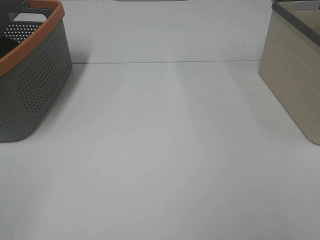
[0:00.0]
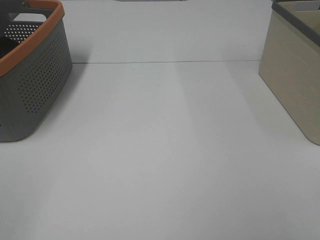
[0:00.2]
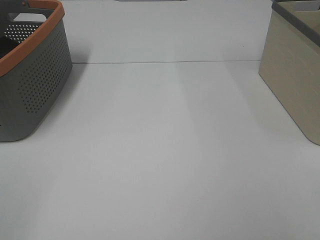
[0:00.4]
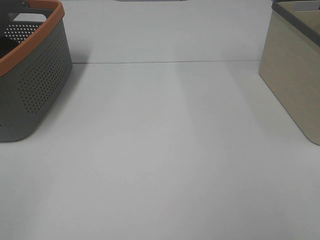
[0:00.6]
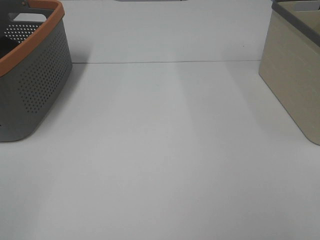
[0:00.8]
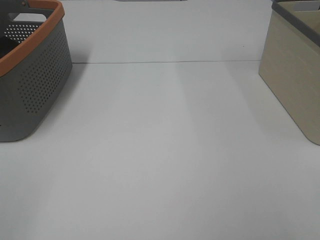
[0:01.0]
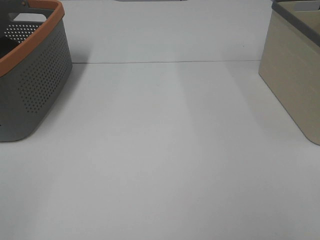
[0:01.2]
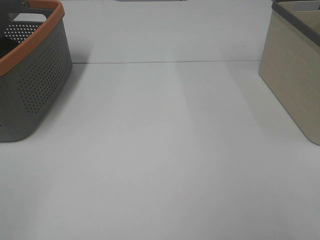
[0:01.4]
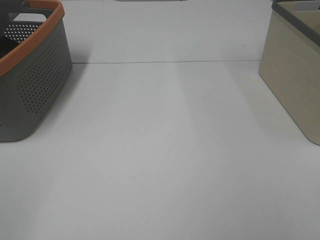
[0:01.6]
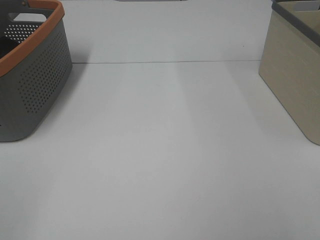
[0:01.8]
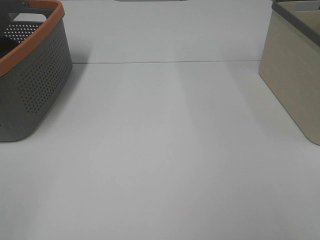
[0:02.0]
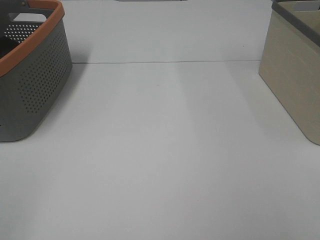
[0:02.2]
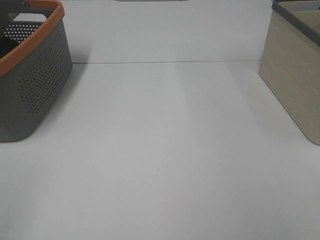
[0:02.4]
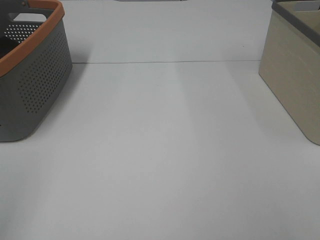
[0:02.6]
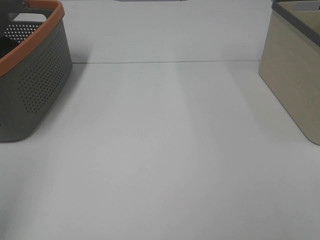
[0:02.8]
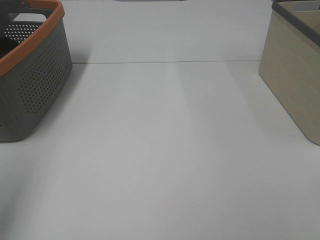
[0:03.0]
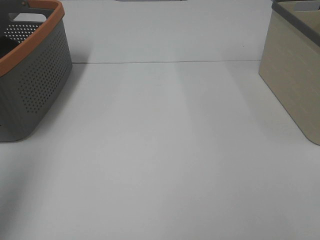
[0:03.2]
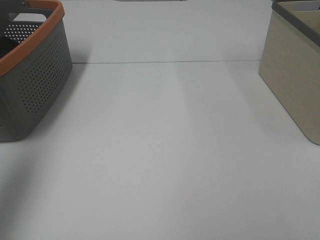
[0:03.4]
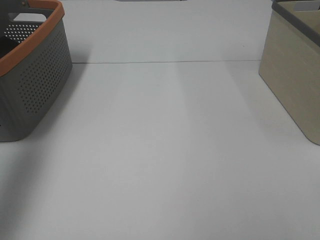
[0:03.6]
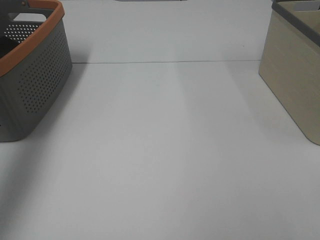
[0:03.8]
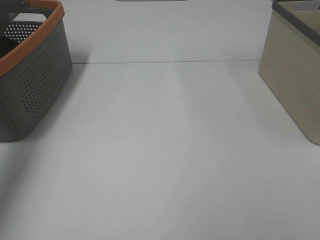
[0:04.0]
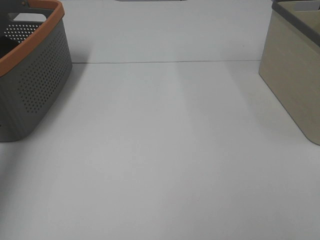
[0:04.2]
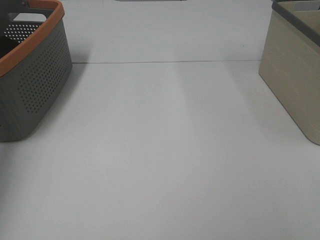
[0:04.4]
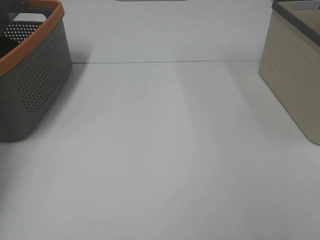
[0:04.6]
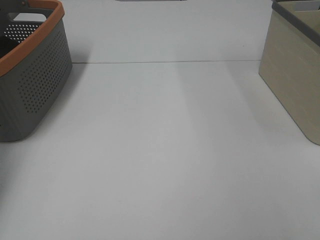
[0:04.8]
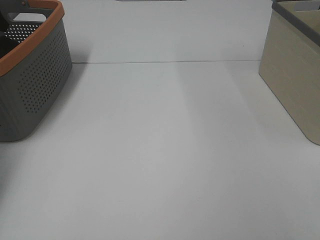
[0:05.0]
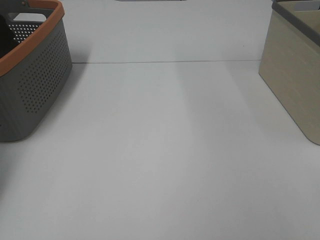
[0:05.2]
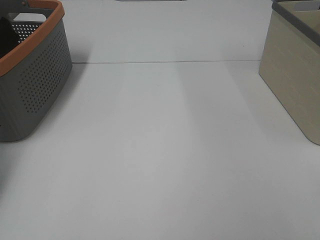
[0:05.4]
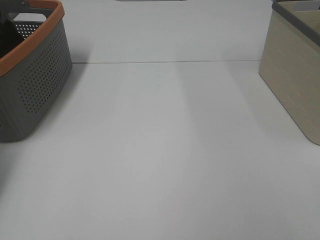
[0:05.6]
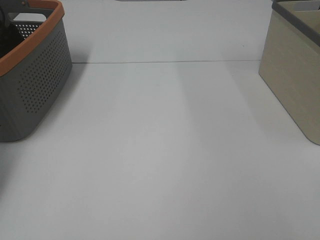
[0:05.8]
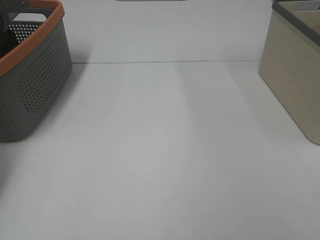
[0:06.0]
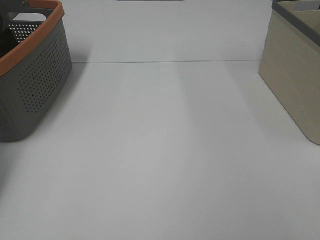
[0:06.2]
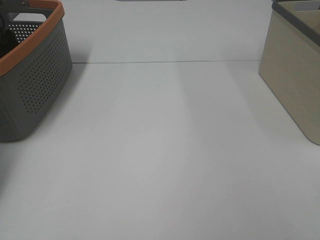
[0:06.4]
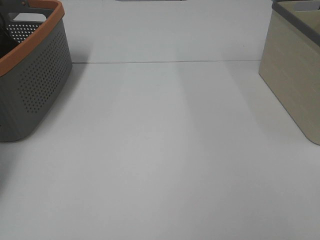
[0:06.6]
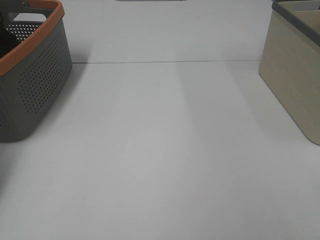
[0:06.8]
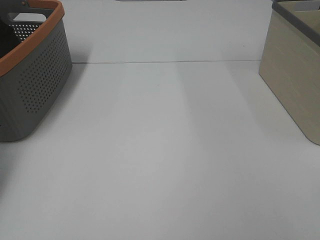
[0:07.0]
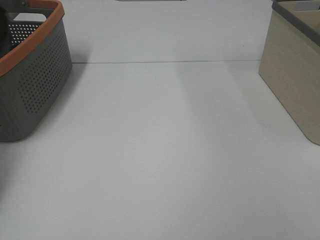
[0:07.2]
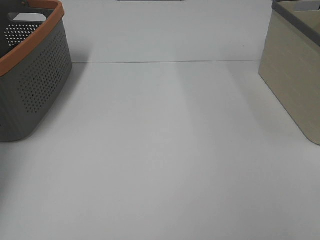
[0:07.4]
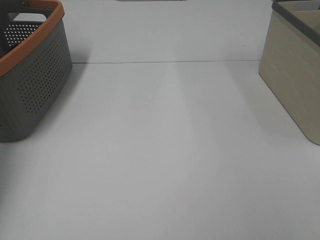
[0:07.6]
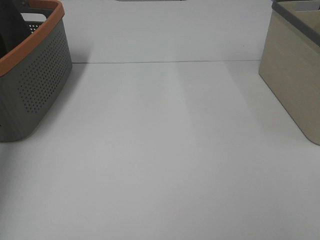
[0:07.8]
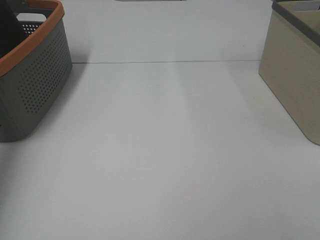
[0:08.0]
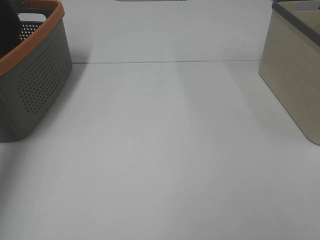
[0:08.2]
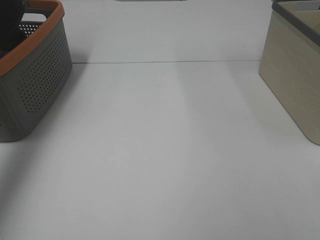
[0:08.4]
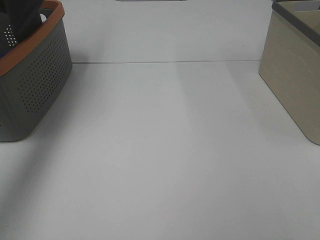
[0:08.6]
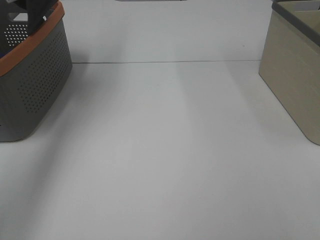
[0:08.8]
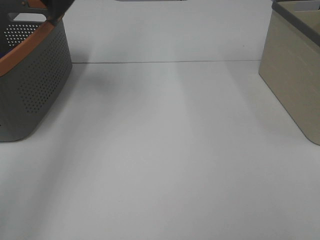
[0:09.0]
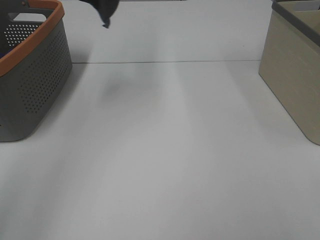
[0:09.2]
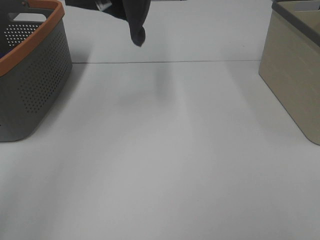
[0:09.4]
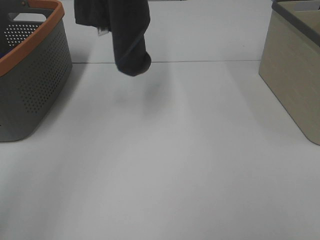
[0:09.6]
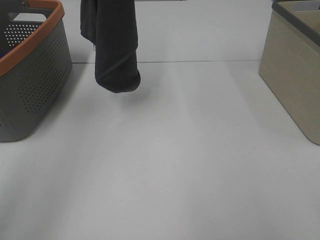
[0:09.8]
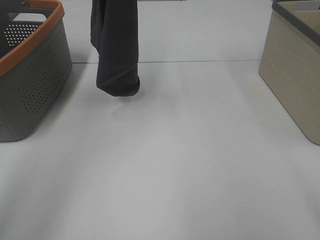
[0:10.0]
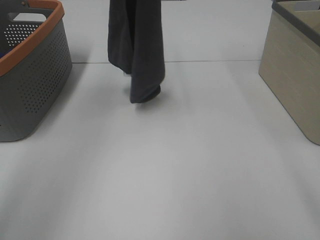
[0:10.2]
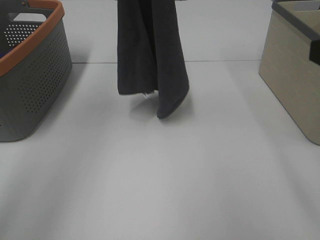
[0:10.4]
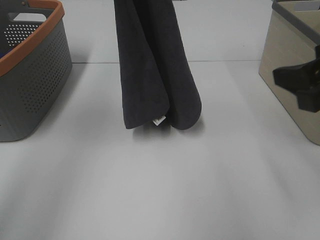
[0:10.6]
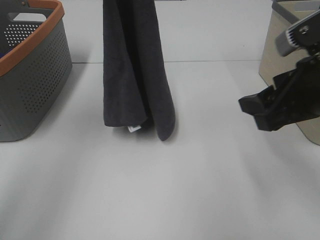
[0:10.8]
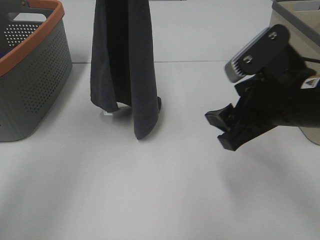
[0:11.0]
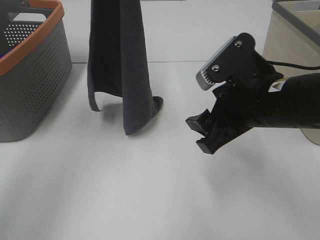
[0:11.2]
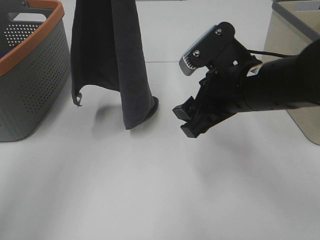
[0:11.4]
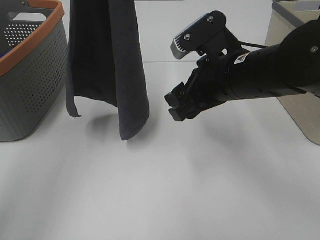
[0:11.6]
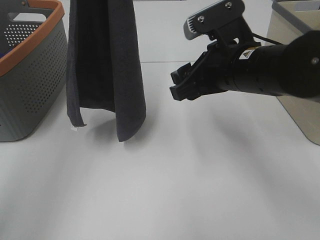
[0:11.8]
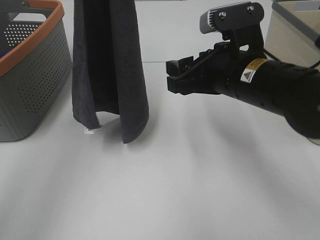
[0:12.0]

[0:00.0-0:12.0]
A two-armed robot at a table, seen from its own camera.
Task of the whole recording: Remove the towel and place it.
0:00.0 to 0:01.6: Both grippers stay put.
0:01.6 to 0:03.0: The left gripper travels forward and upward by some 15 cm.
0:03.0 to 0:04.4: The left gripper goes roughly 35 cm forward.
0:07.6 to 0:09.0: The left gripper is displaced upward, to the right and backward by some 30 cm.
0:09.0 to 0:10.4: The left gripper goes roughly 15 cm downward and to the right, while the right gripper is displaced forward by about 15 cm.
0:10.4 to 0:12.0: The right gripper goes roughly 20 cm to the left, forward and downward.

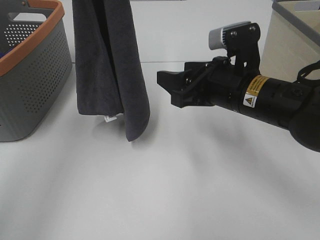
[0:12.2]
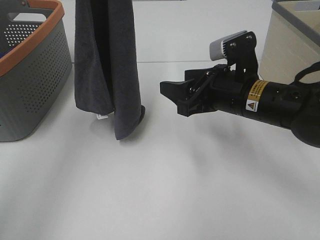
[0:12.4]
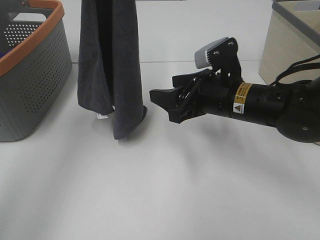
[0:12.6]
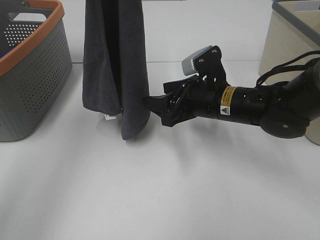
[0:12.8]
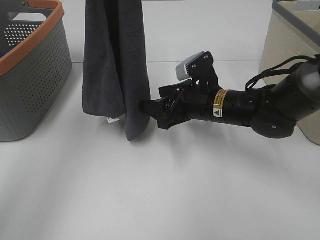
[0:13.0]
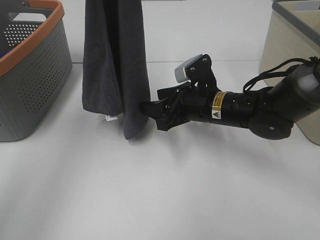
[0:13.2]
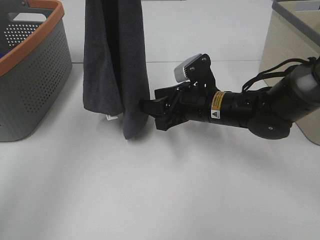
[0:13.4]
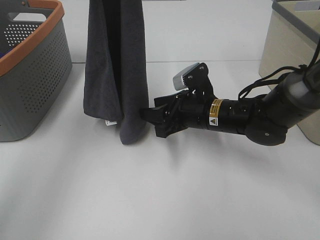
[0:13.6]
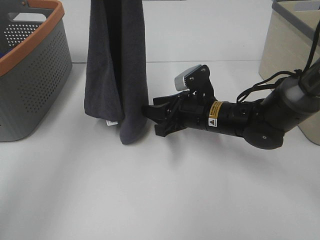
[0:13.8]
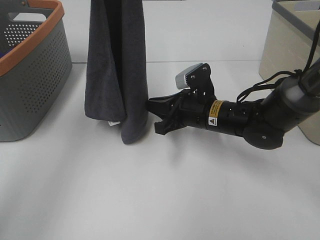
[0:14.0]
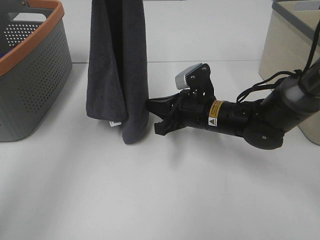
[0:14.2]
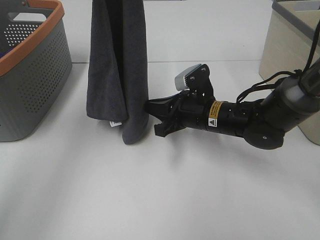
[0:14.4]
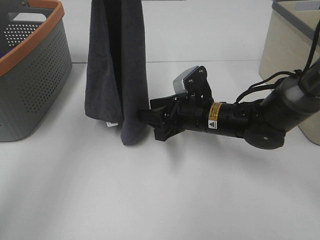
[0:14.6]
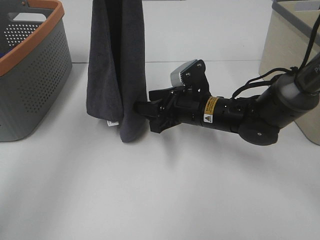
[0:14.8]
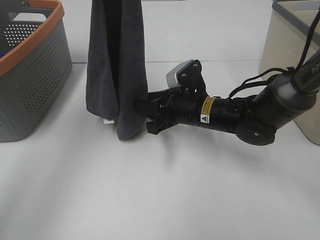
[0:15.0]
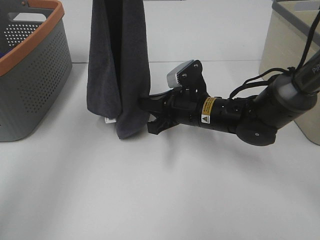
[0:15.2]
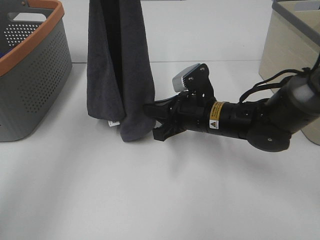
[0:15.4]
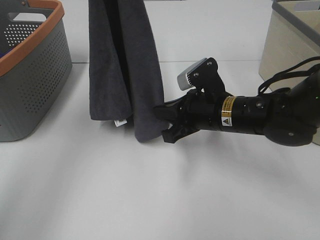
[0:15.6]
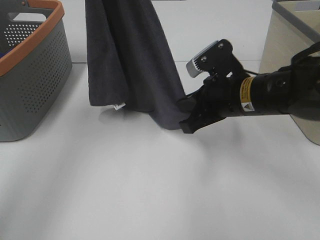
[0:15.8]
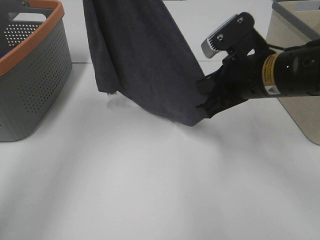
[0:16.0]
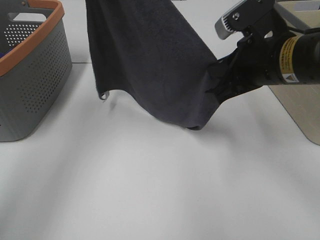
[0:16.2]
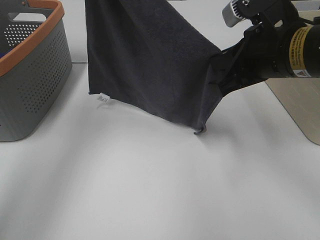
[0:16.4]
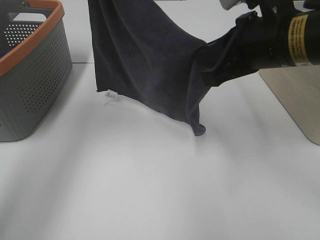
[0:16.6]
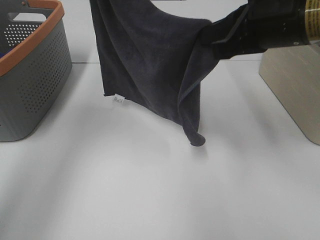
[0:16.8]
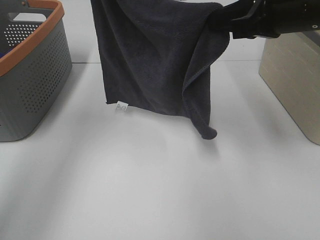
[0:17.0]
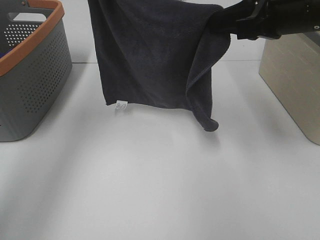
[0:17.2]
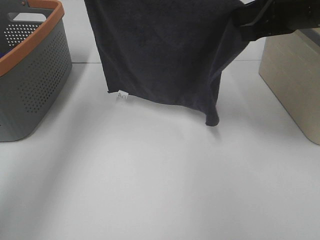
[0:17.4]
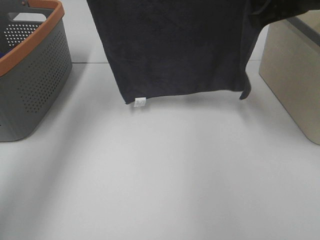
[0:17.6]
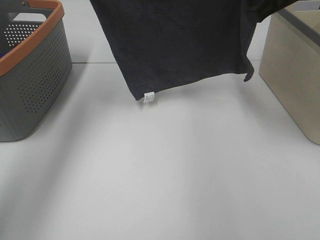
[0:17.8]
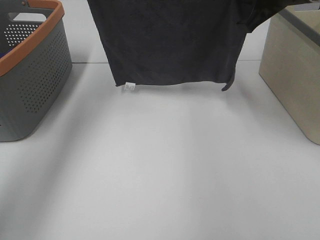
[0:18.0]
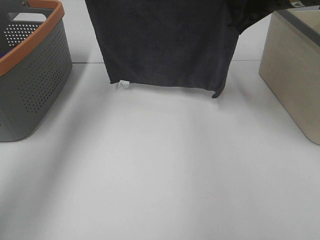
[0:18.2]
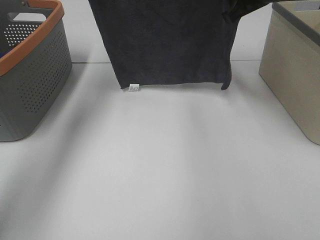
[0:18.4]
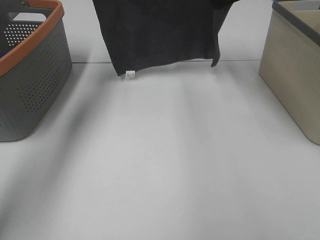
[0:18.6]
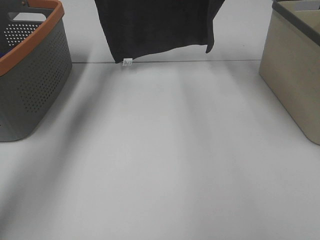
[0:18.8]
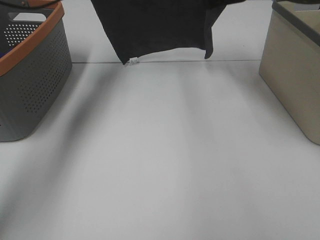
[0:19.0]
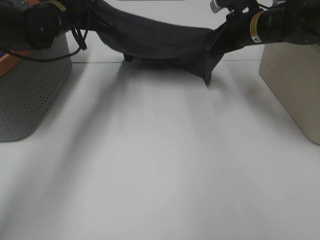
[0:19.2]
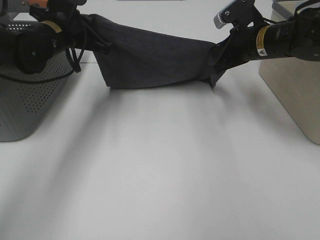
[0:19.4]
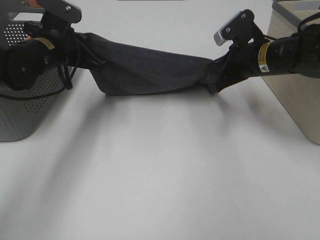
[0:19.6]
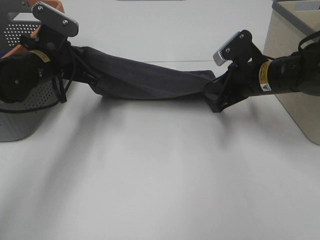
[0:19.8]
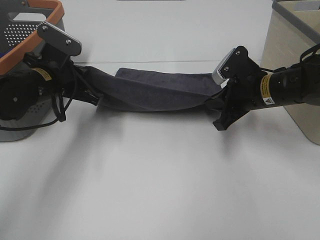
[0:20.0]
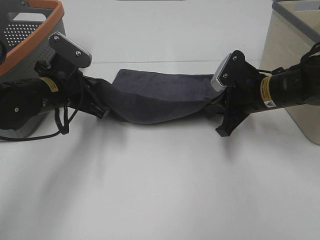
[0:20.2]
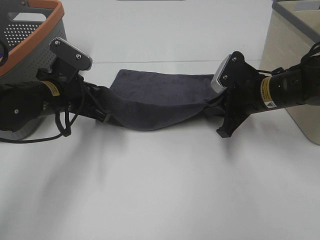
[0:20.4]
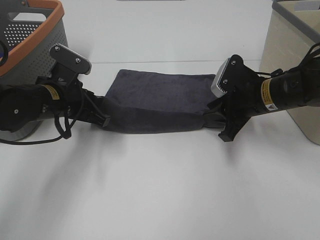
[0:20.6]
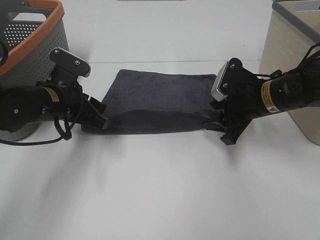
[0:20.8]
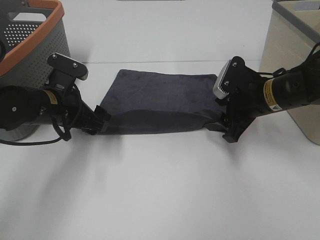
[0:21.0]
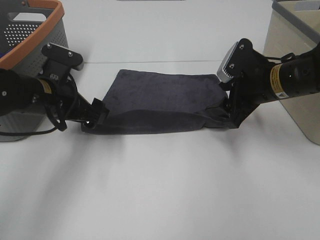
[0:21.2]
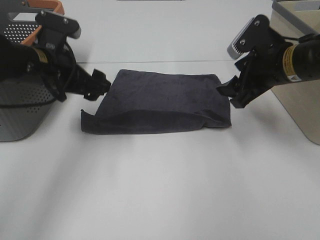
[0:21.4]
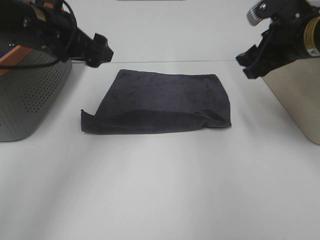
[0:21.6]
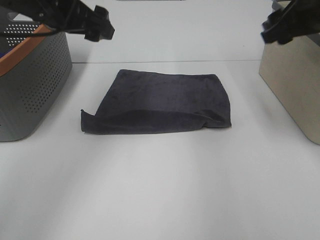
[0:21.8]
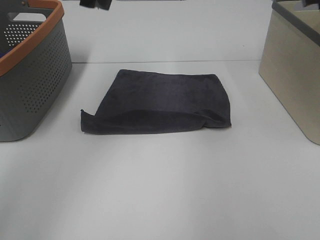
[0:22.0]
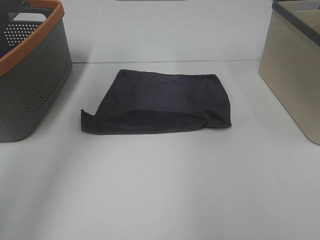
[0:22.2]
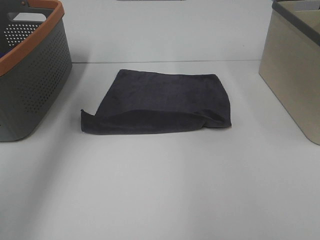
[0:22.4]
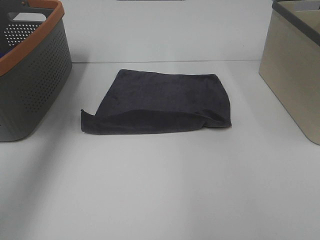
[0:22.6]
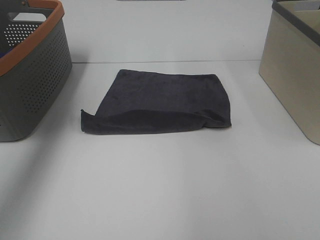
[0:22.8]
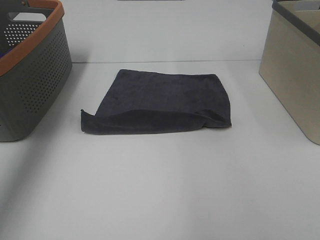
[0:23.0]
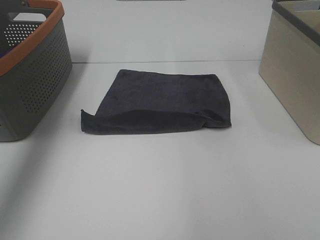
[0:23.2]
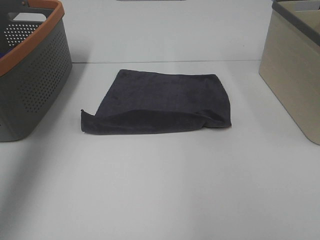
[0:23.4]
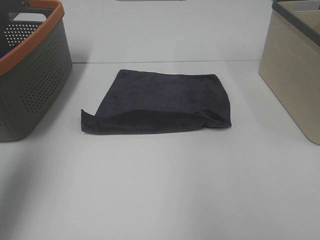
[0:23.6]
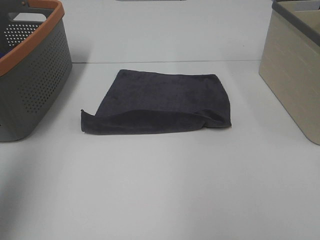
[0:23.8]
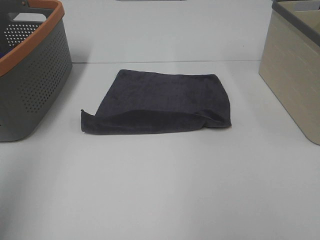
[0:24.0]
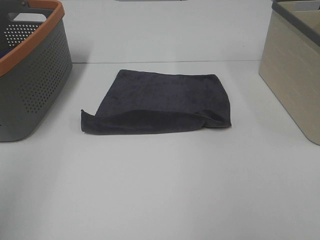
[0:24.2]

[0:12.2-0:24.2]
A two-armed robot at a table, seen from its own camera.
Task of the whole recording: Remove the towel and place it.
Step, 0:12.2 to 0:14.4: Right hand: grab a corner of the grey towel and straighten it.
Step, 0:14.6 to 0:16.6: Left hand: spread the grey towel flat on the table.
Step, 0:14.6 to 0:16.6: Right hand: spread the grey towel flat on the table.
0:12.2 to 0:13.8: The right gripper shifts some 10 cm downward and forward, and closes up.
0:13.8 to 0:15.2: The right gripper closes.
0:15.2 to 0:16.6: The right gripper is displaced upward and backward by approximately 20 cm. The left gripper changes place by approximately 5 cm.
0:16.6 to 0:18.2: The right gripper heads forward, covering approximately 15 cm, while the left gripper moves approximately 5 cm.
0:18.2 to 0:19.8: The left gripper moves downward and backward, roughly 20 cm. Meanwhile the right gripper heads downward, covering approximately 15 cm.
0:19.8 to 0:21.2: The right gripper opens its fingers. The left gripper is displaced backward by some 5 cm, and opens up.
0:21.2 to 0:22.6: The two grippers go roughly 25 cm upward.
0:22.6 to 0:24.2: The left gripper shifts some 30 cm backward.
